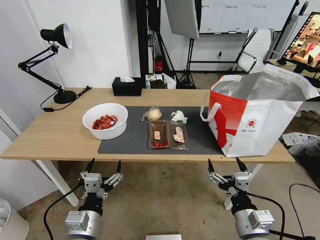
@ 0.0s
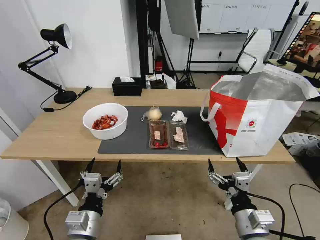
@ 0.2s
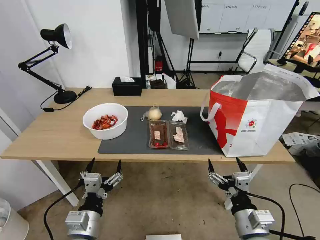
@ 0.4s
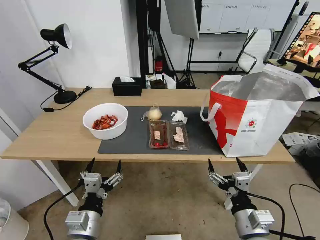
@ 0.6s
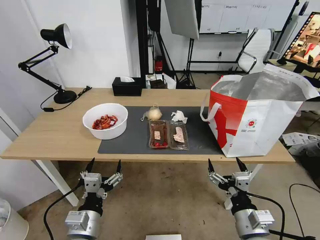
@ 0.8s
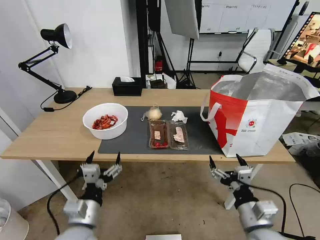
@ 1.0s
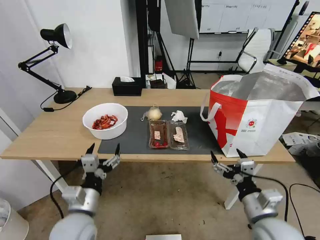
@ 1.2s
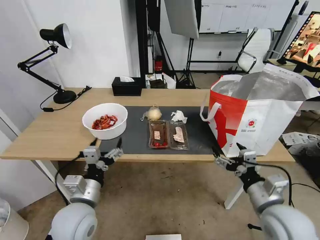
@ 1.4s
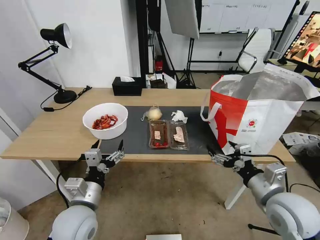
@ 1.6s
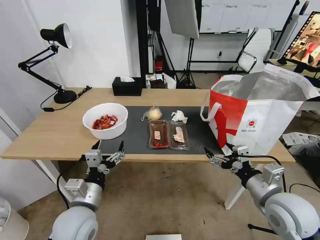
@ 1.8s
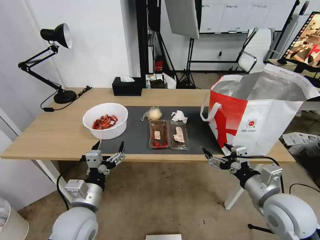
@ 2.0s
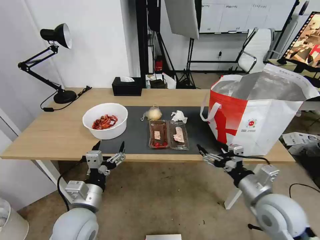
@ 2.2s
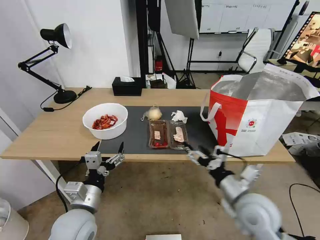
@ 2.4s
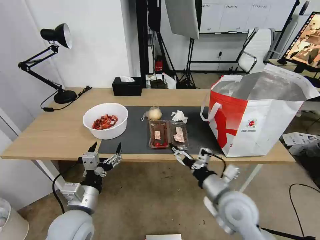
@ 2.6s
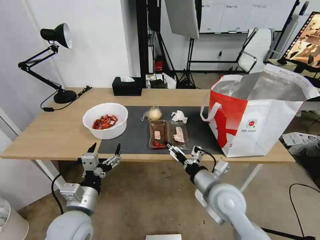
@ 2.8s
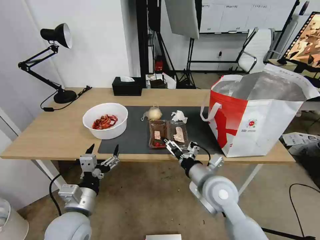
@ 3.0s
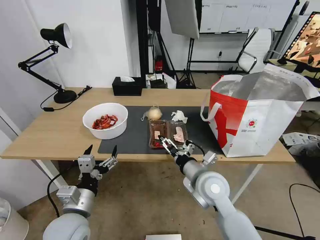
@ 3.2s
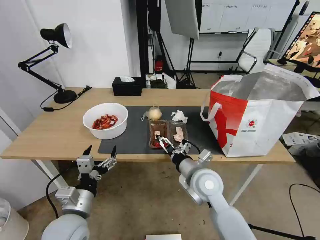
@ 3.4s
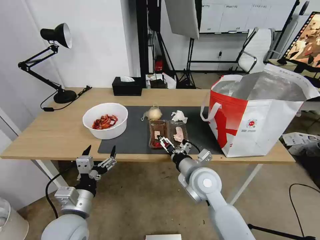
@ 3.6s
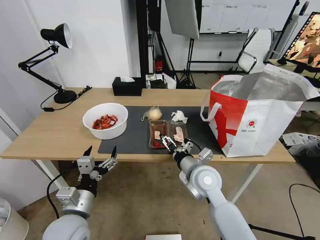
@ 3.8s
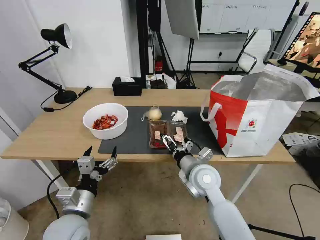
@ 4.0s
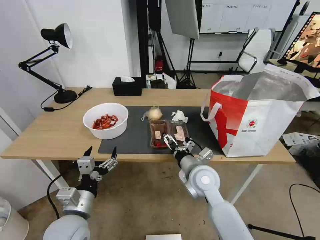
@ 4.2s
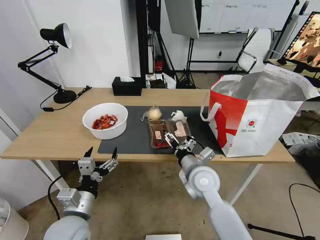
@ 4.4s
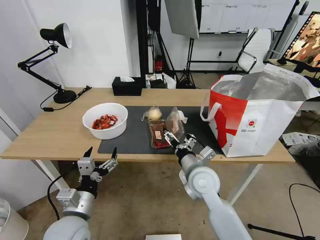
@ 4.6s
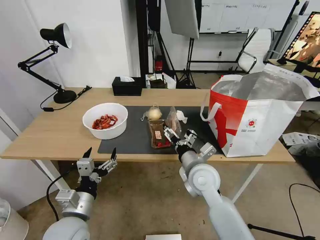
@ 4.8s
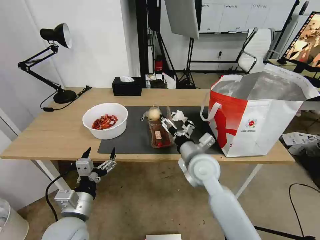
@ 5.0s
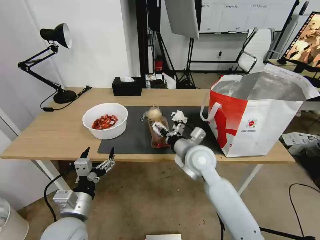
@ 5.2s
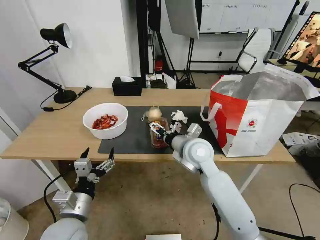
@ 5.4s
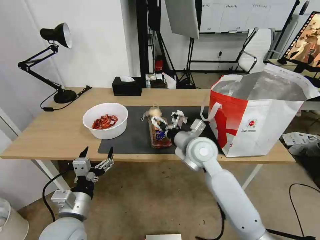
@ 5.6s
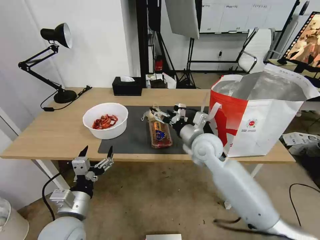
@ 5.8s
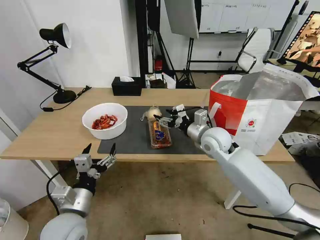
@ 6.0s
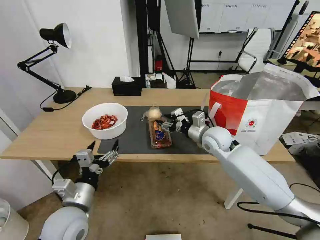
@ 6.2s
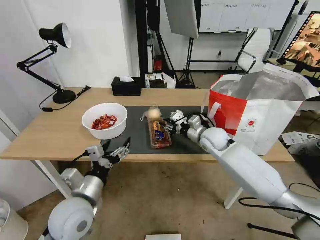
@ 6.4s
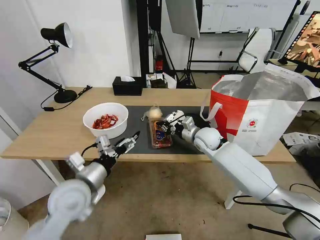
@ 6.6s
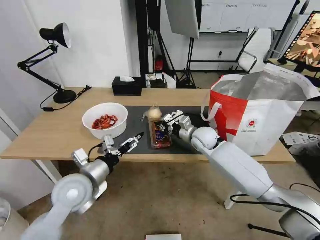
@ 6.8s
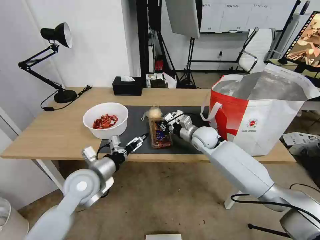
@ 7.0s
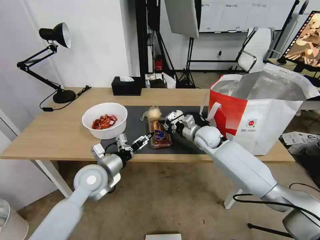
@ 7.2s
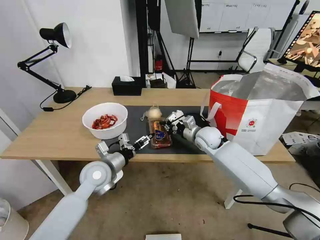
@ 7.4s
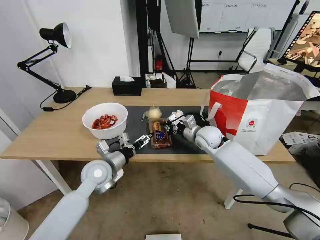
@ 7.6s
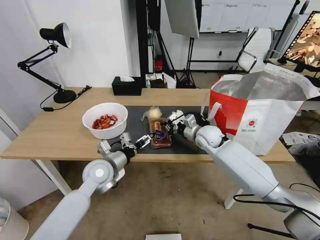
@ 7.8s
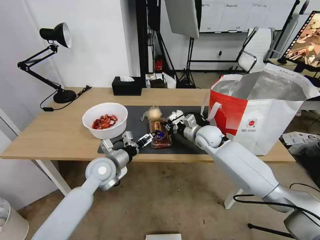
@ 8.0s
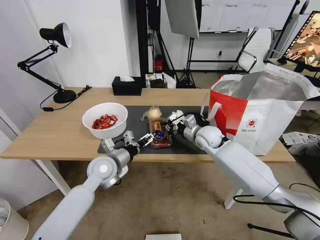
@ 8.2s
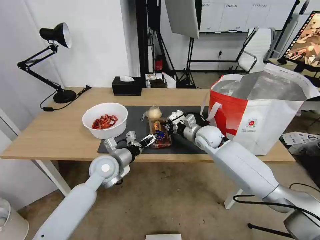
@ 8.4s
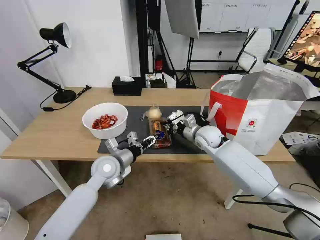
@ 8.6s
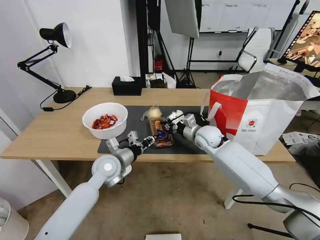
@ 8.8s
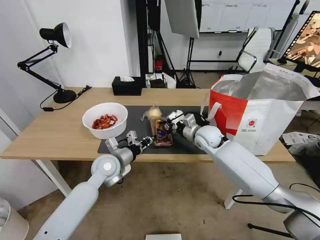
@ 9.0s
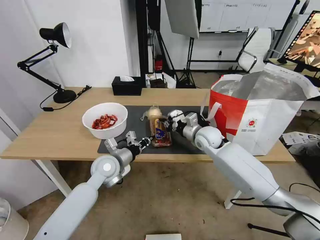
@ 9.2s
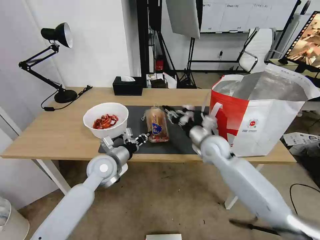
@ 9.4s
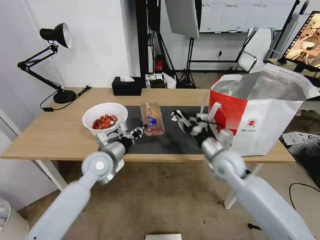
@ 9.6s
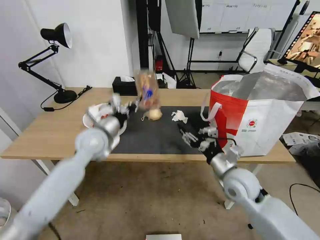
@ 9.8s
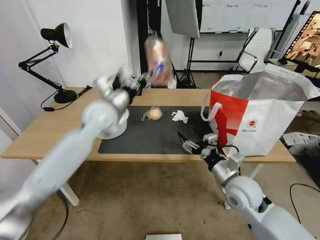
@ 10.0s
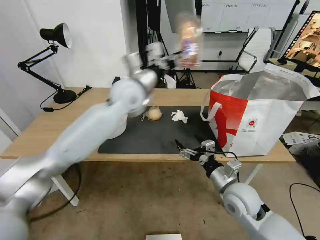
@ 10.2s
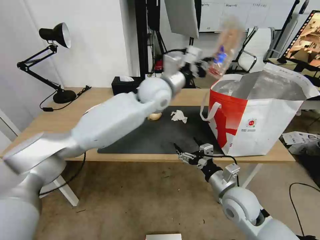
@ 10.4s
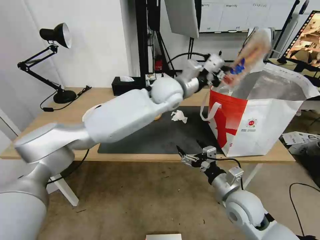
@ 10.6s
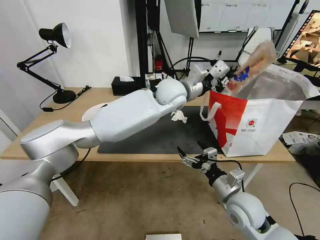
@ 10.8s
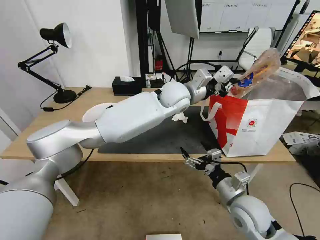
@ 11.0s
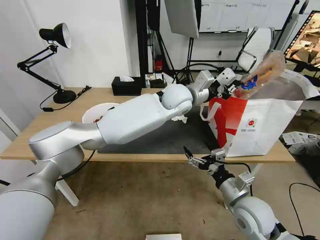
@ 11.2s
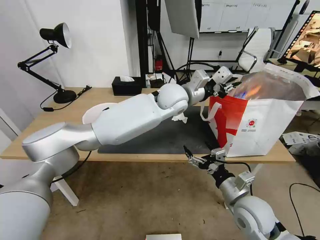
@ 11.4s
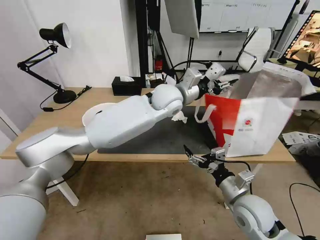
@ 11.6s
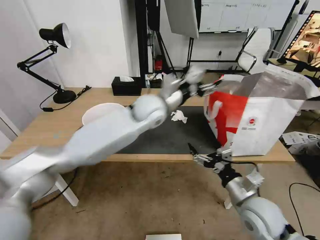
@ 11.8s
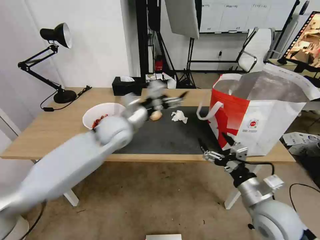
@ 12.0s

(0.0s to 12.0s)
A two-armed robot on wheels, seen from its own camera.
Task of the whole recording: Pick up the trash from the table and place it into the takeout bag.
1.6s - 3.0s: The right gripper heads to the left and forward, covering roughly 15 cm.
3.0s - 4.4s: The right gripper moves roughly 5 cm.
4.4s - 6.0s: The right gripper travels forward, upward and to the right by some 15 cm.
6.0s - 7.6s: The left gripper is displaced forward by roughly 15 cm. Meanwhile the right gripper moves forward and downward, about 10 cm, and closes up.
7.6s - 9.0s: The left gripper closes.
9.0s - 10.4s: The right gripper shifts roughly 25 cm backward, and opens, while the left gripper heads upward, to the right and forward, covering about 30 cm.
10.4s - 12.0s: The left gripper is displaced to the left, downward and backward by some 15 cm, and opens its fingers. Meanwhile the right gripper moves about 10 cm.

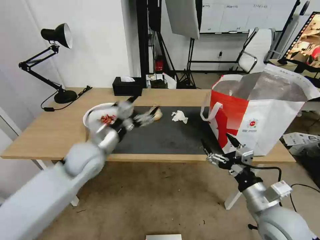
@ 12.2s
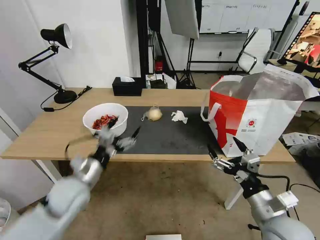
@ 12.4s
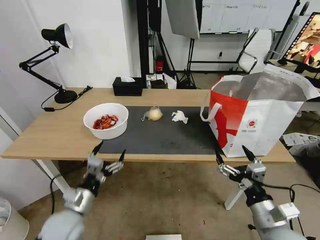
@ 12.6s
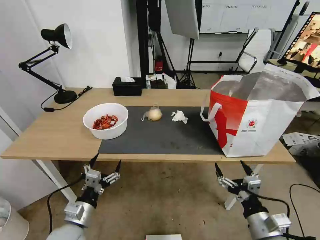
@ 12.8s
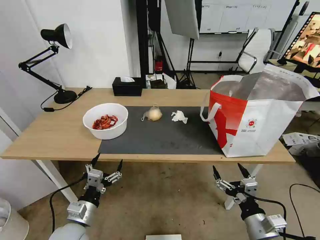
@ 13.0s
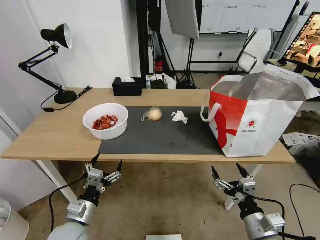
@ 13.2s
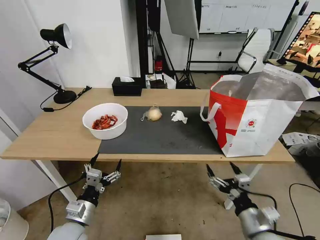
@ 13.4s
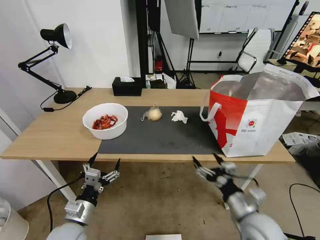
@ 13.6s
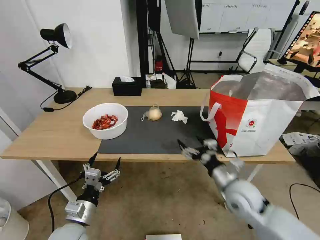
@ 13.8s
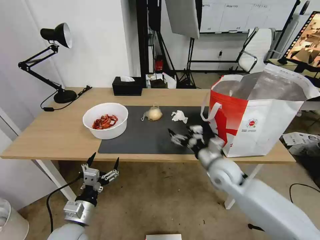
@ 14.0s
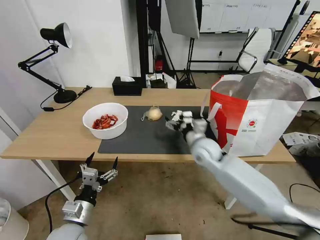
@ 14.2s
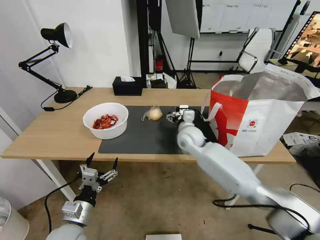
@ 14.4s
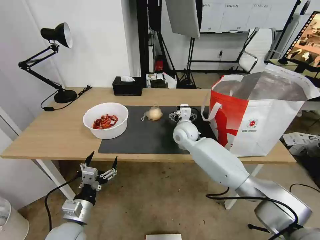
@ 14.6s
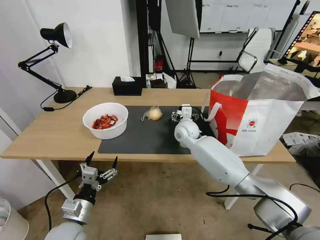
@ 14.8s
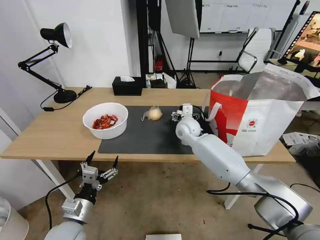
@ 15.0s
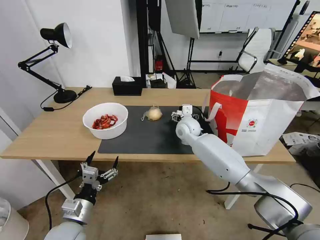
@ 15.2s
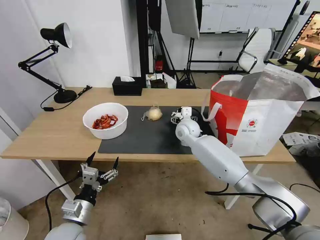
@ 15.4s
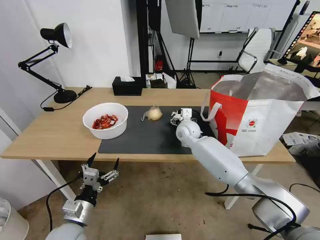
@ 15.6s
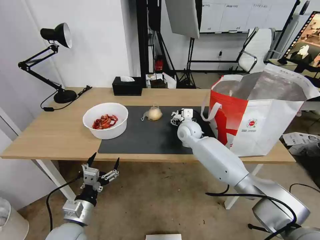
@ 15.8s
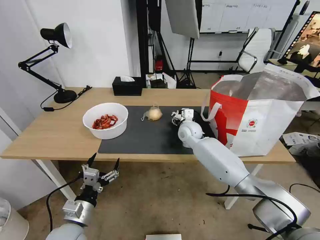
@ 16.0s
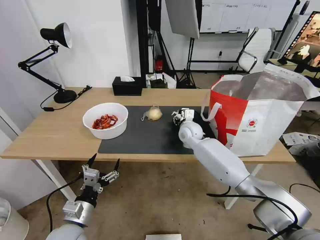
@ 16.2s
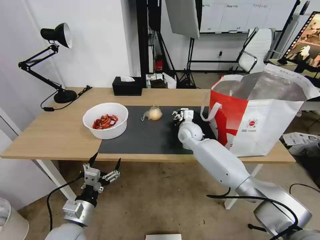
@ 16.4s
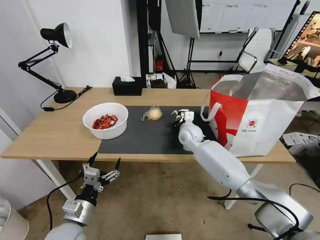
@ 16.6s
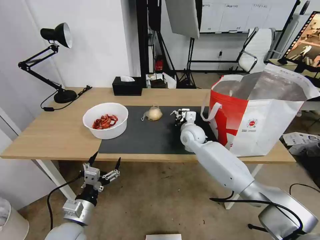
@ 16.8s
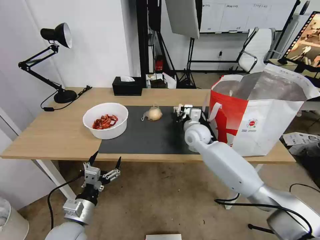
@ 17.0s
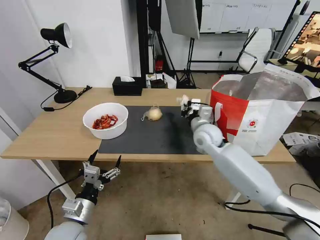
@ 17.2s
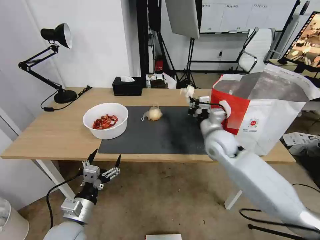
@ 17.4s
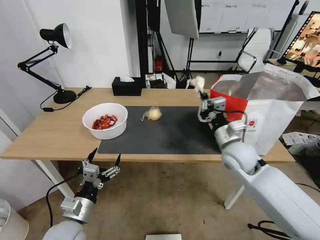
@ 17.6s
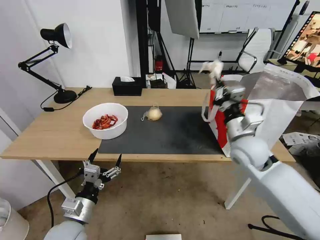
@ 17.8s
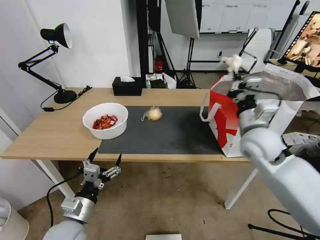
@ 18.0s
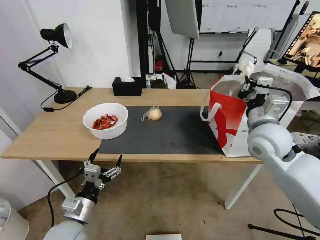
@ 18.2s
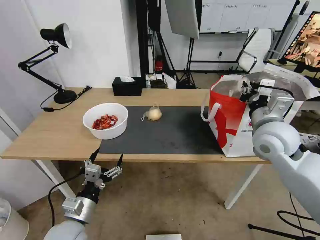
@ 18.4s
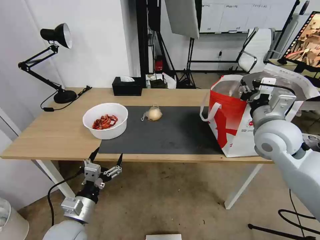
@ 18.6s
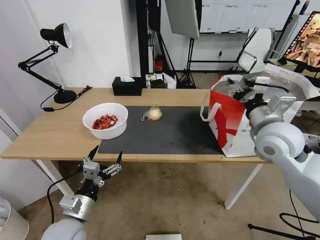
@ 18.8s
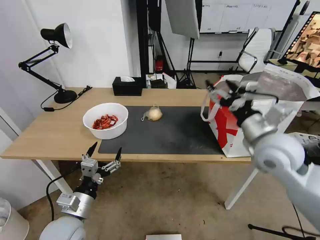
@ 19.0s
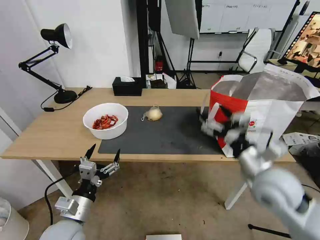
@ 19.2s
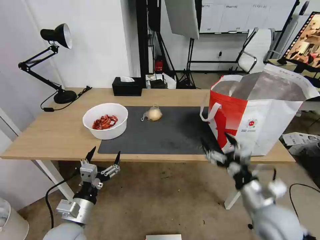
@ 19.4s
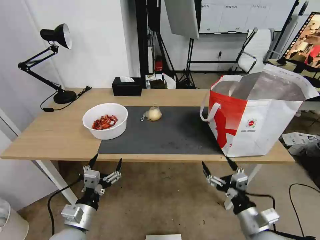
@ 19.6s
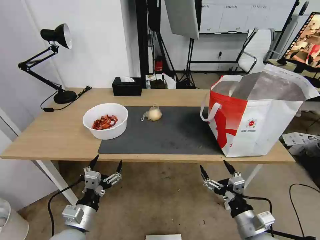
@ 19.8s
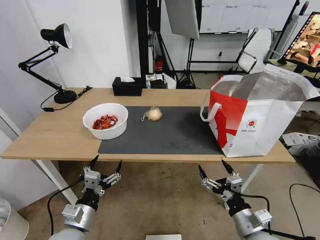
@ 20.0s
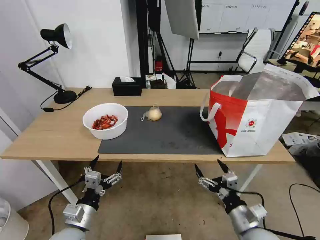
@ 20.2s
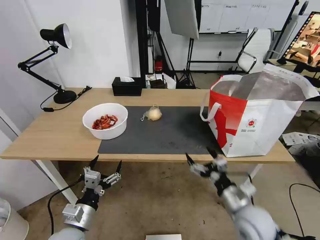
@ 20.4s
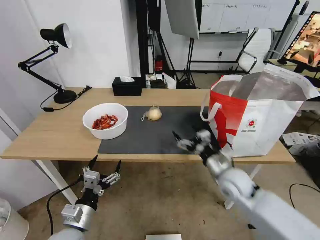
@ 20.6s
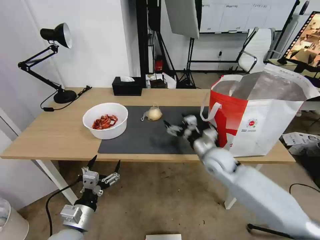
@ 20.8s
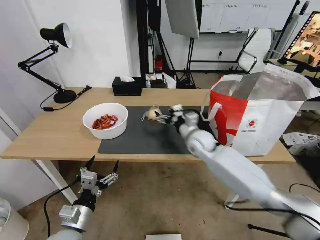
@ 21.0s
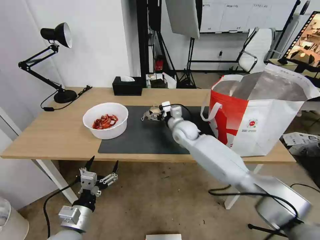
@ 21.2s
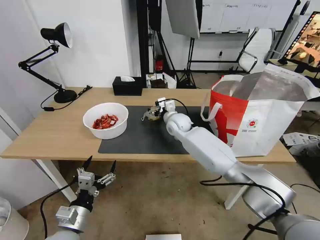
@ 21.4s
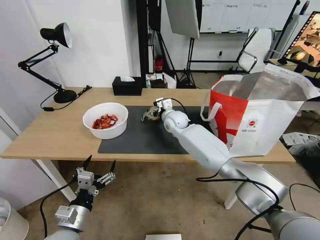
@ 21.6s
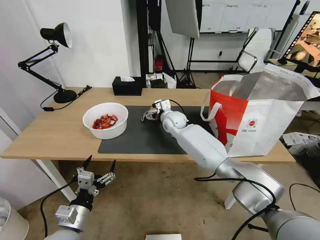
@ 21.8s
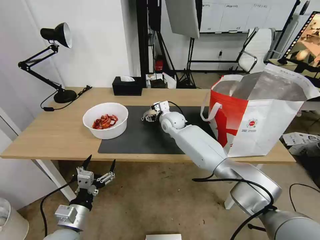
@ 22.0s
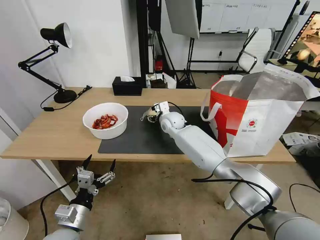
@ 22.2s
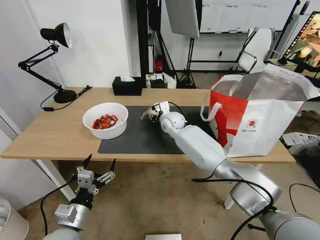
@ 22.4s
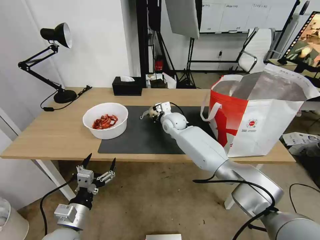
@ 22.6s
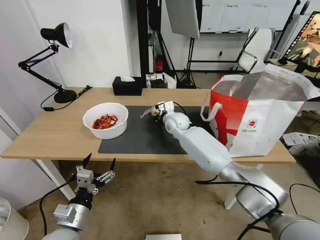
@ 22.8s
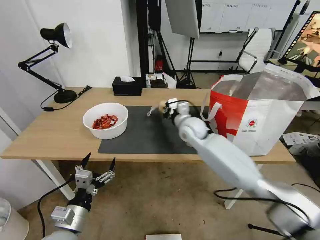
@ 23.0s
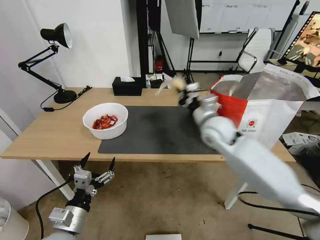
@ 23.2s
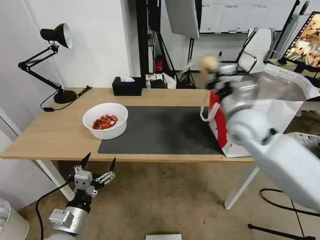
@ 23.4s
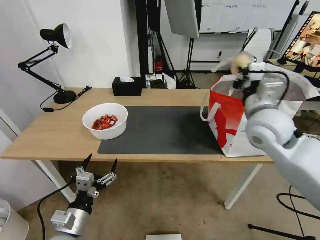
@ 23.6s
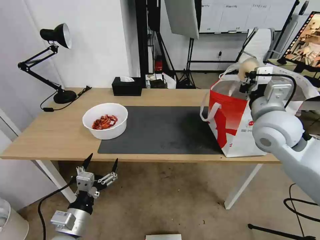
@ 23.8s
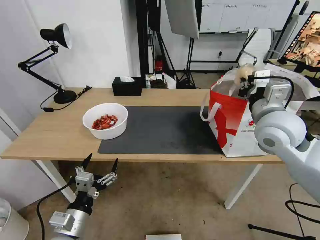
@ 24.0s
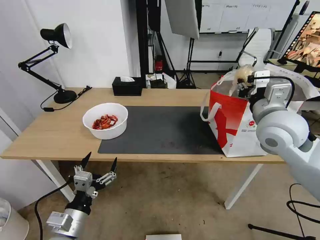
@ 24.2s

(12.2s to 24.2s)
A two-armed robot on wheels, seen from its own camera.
Task of the whole recording: Pick up the trash from the table and place it into the takeout bag.
12.2s - 13.8s: The right gripper heads forward, covering some 10 cm. The left gripper heads backward and downward, covering roughly 25 cm.
13.8s - 15.2s: The right gripper shifts some 30 cm forward and to the left.
15.2s - 16.6s: The right gripper closes up.
16.6s - 18.2s: The right gripper heads to the right, backward and upward, covering about 25 cm.
18.2s - 19.8s: The right gripper is displaced backward and downward by roughly 30 cm, and opens its fingers.
19.8s - 21.2s: The right gripper is displaced forward and to the left by approximately 40 cm.
21.2s - 22.6s: The right gripper travels forward by about 5 cm, and closes its fingers.
22.6s - 24.2s: The right gripper goes about 35 cm to the right, backward and upward.
